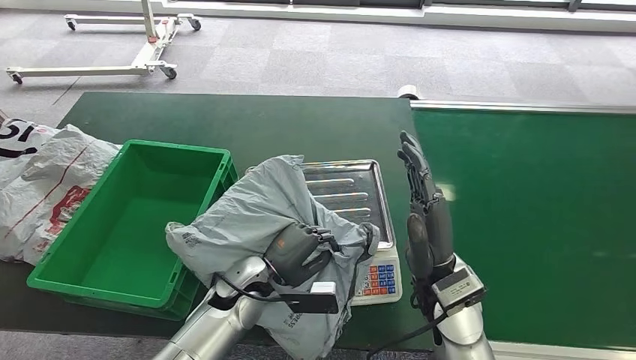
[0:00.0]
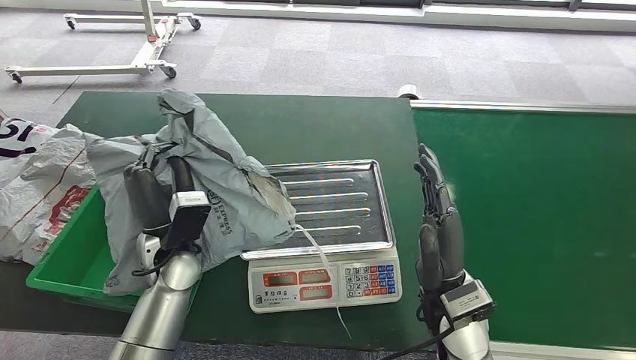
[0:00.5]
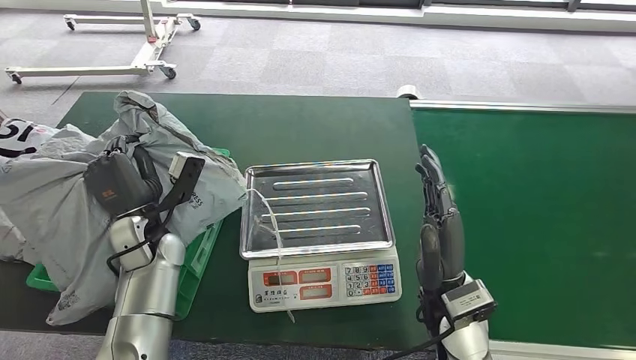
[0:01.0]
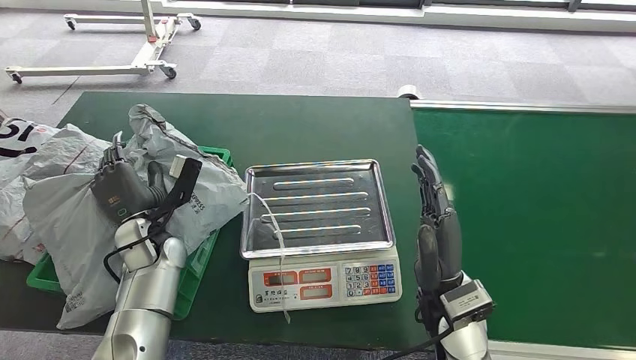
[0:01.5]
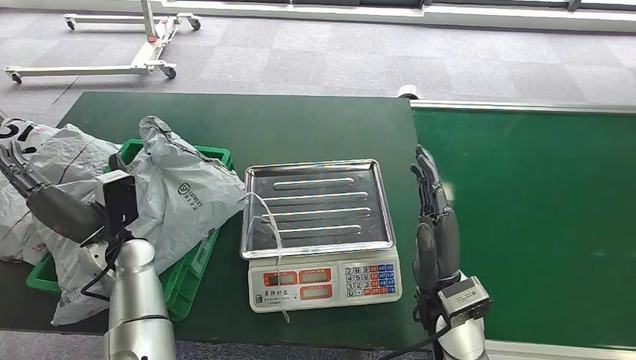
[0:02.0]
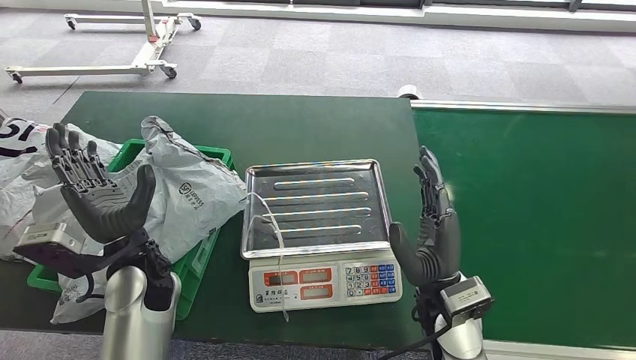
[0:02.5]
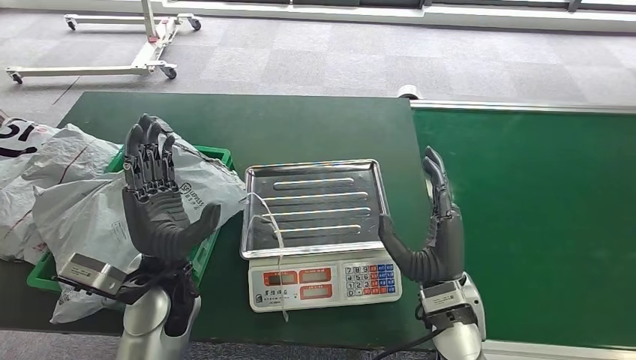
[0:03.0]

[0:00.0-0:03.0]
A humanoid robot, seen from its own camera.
Step, 0:01.5 to 0:03.0: Place the package into the parcel locker.
0:01.5 to 0:03.0: The left hand is displaced to the right, backward and upward by roughly 15 cm.
